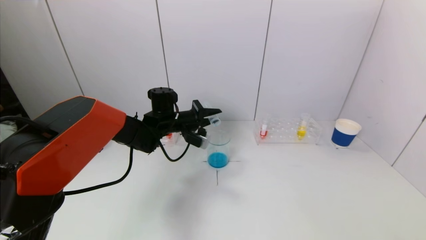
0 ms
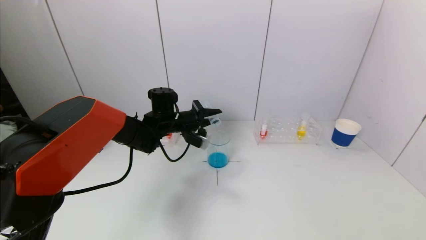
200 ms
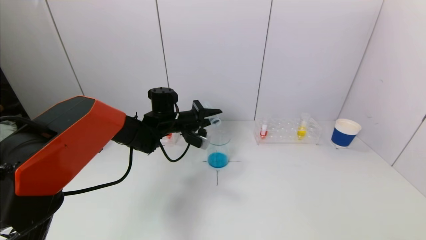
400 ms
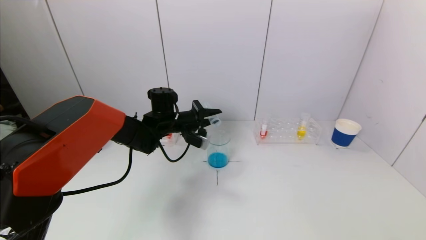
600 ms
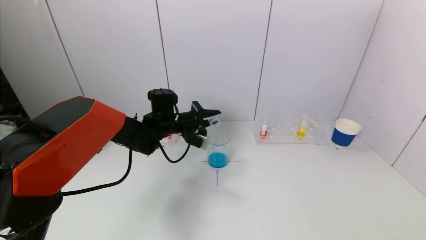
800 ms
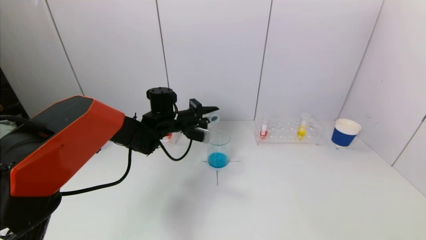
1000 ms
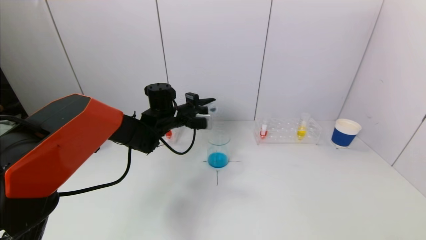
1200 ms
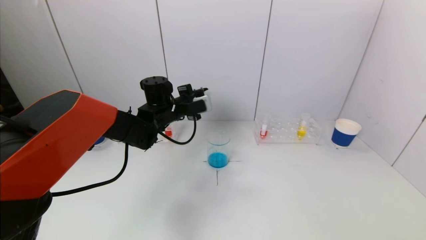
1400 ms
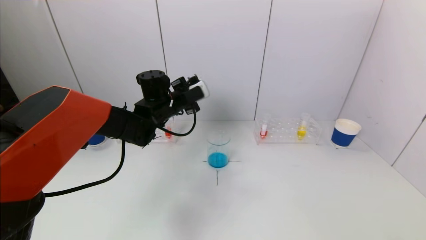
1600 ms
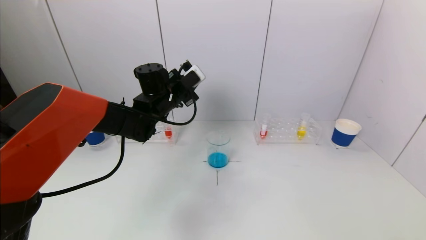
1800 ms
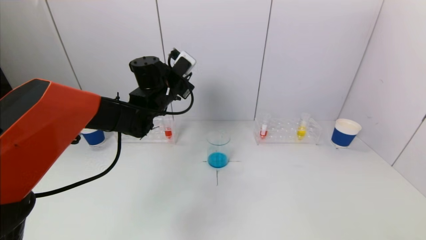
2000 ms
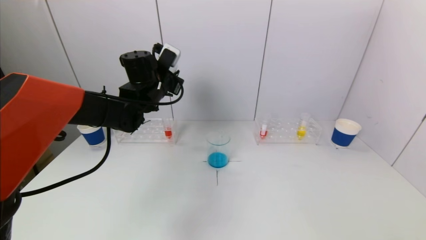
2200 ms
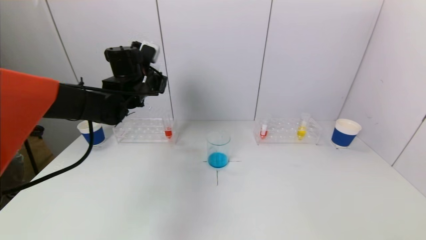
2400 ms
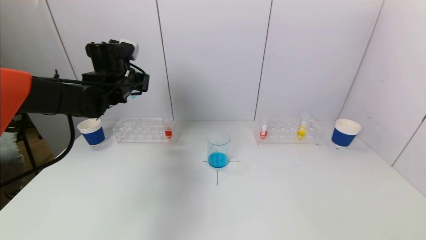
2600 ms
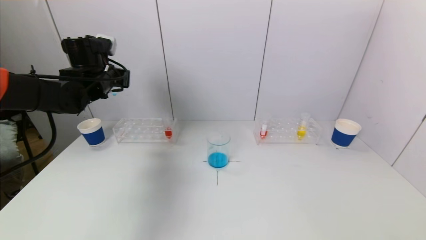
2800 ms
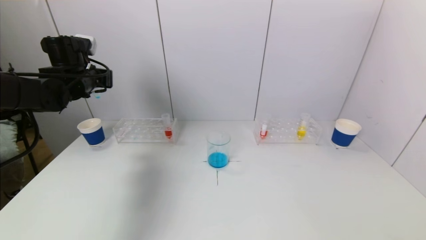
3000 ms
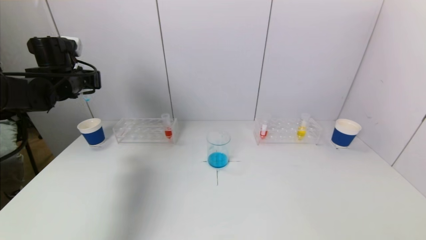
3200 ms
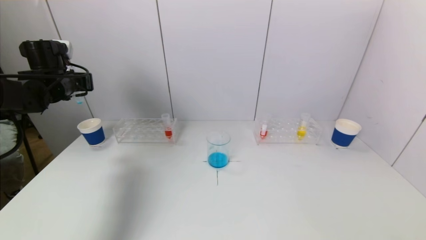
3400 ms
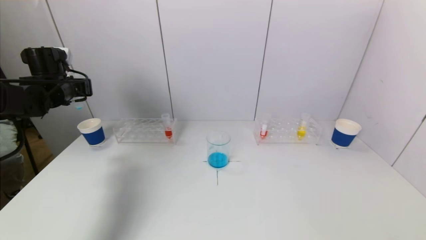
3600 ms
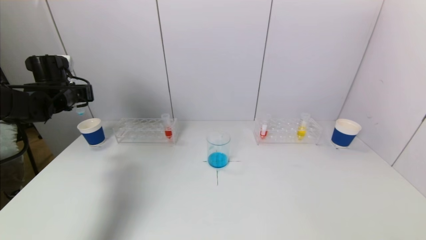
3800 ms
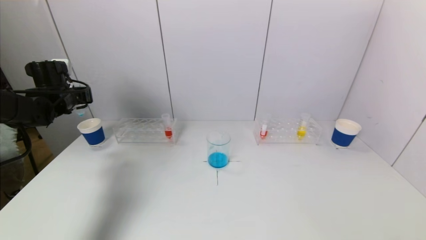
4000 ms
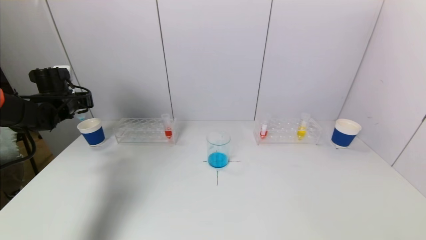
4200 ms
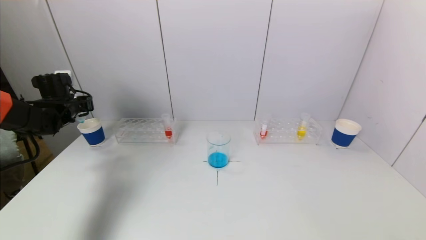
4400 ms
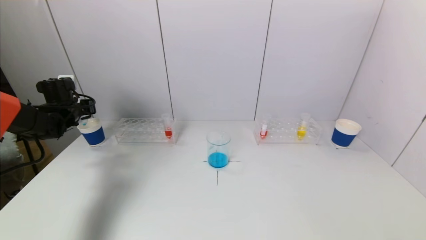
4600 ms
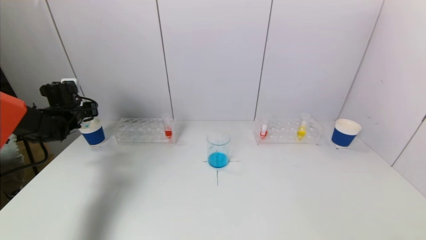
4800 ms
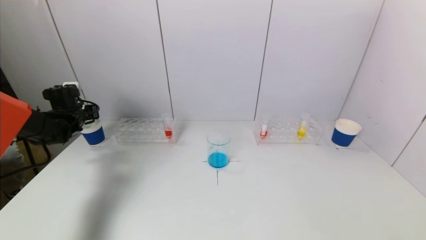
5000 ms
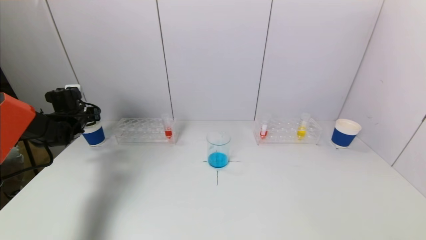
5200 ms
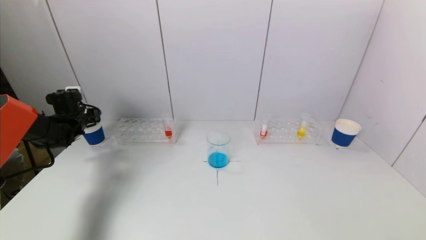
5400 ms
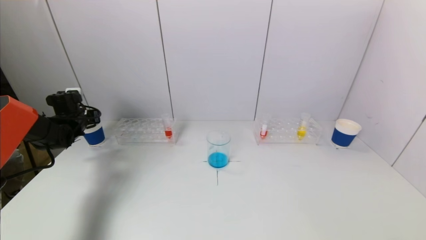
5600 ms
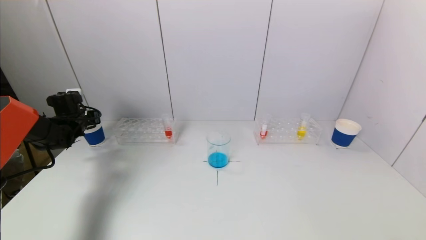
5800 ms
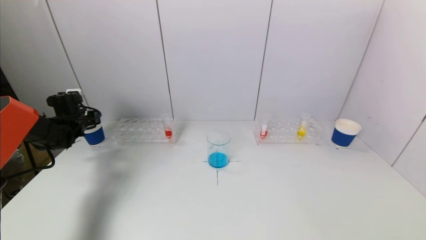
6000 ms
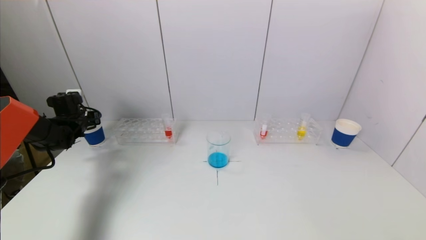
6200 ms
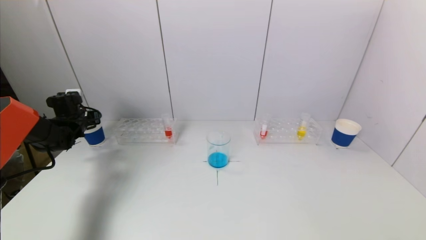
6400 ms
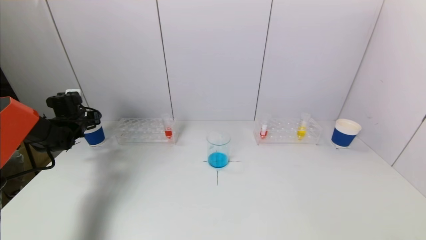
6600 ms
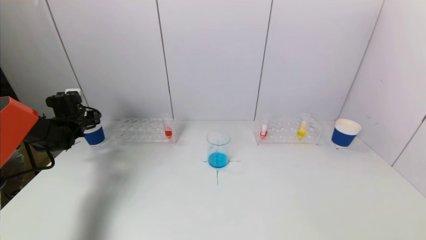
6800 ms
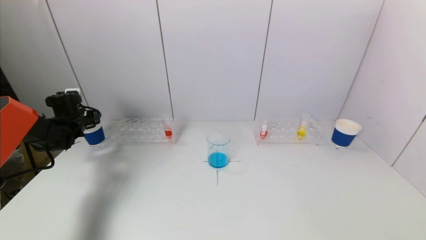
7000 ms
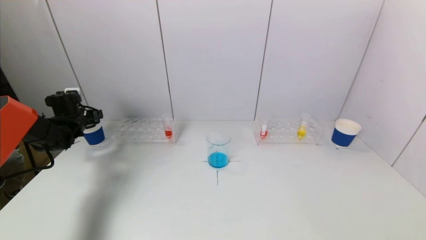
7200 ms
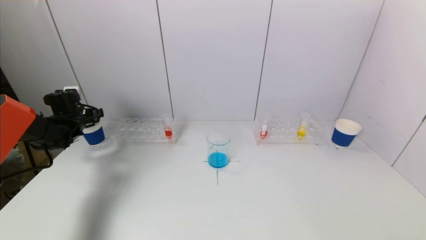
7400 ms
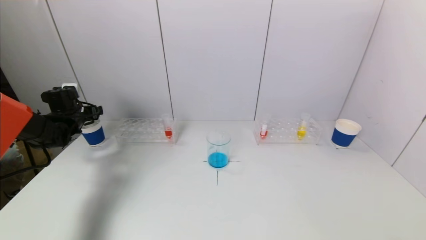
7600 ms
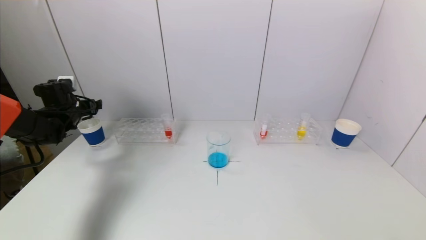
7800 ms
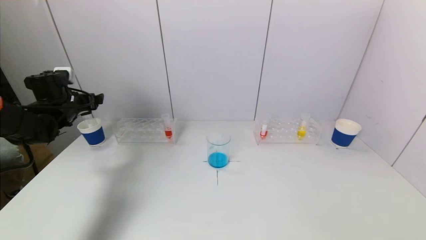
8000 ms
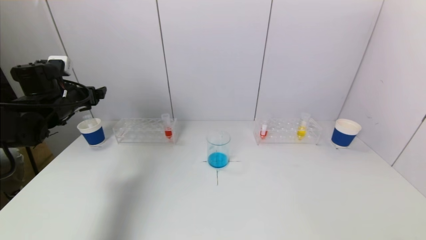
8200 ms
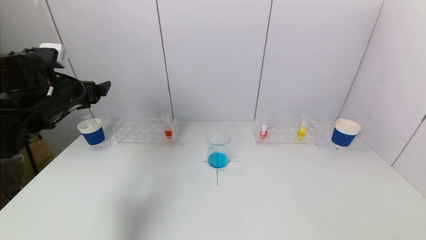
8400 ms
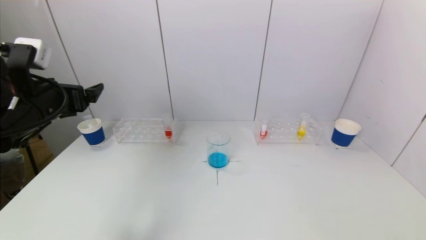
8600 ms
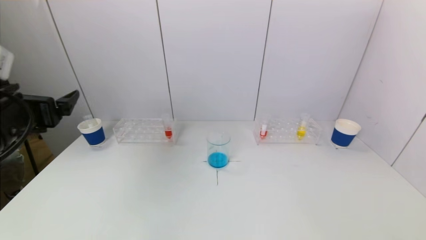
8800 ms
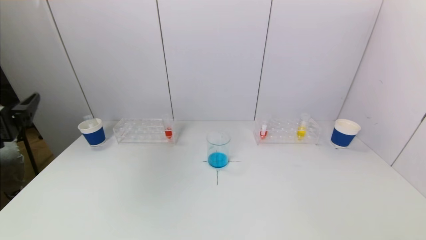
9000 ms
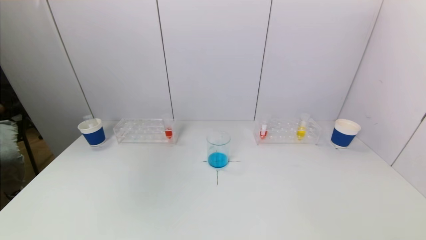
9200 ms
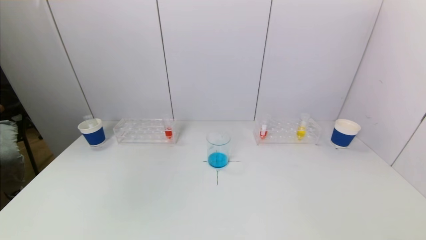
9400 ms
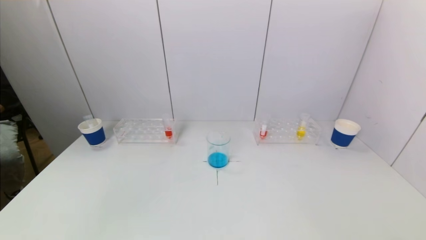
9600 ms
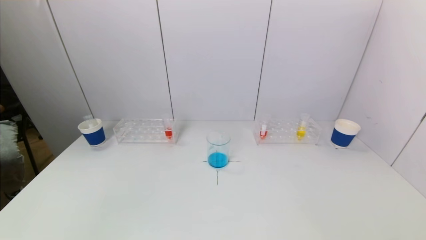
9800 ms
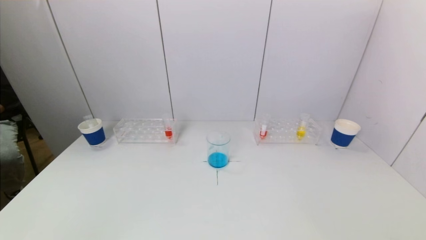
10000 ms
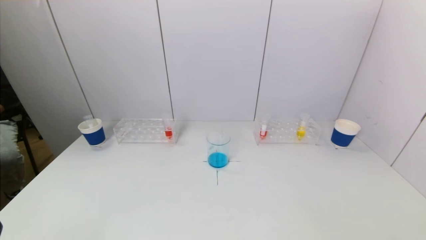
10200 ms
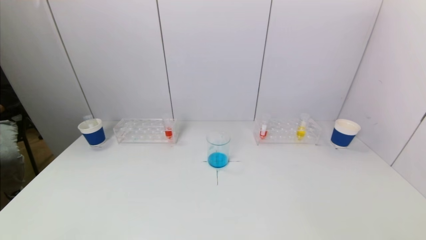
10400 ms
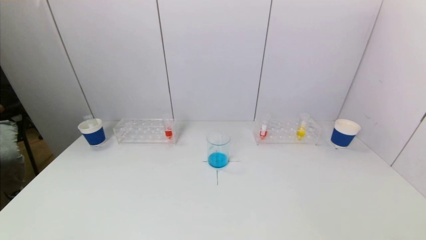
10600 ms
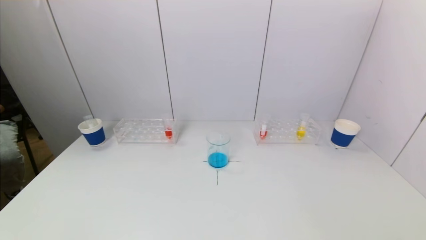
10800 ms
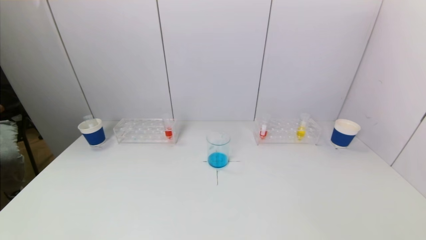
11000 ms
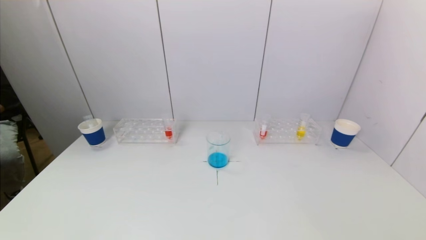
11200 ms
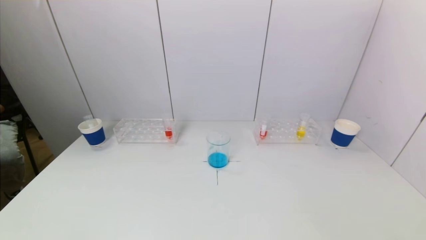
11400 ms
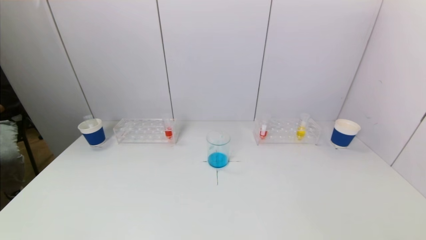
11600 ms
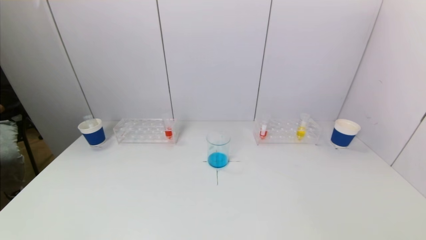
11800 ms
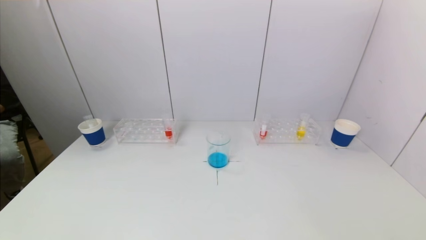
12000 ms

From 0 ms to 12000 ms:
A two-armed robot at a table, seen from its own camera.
Task of the whole recording: pick up a test tube with pigment on left test tube rack and a test tube with pigment on right test tube rack by grippers and pour them into the beaker.
Step, from 1000 ms to 7000 ms: Place the test tube into the paper cup with the left gripper.
From 0 ms to 1600 ms: The left gripper heads upward, covering approximately 5 cm.
From 1600 ms to 3000 ms: The left gripper moves to the left, approximately 20 cm.
From 3000 ms to 4400 ms: The left gripper goes about 15 cm to the left and downward.
From 4400 ms to 6000 ms: The left gripper heads downward, covering roughly 5 cm.
From 6000 ms to 7600 ms: The left gripper opens up.
From 7600 ms to 9000 ms: The left gripper shifts about 35 cm backward and upward.
From 9000 ms to 10400 ms: The left gripper moves downward and backward, roughly 20 cm.

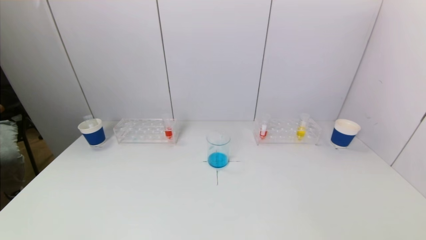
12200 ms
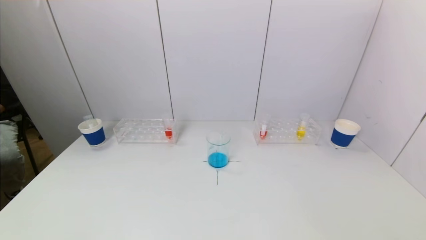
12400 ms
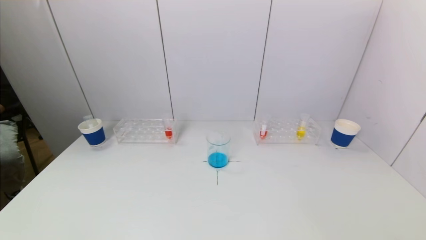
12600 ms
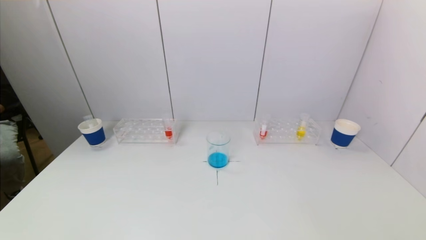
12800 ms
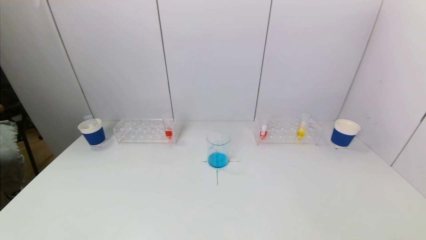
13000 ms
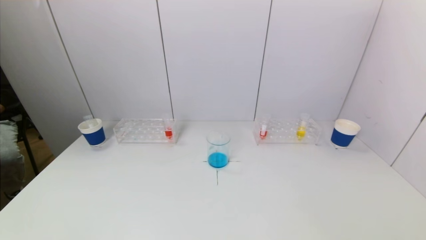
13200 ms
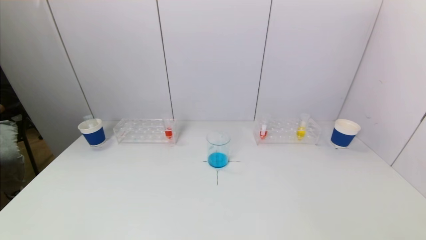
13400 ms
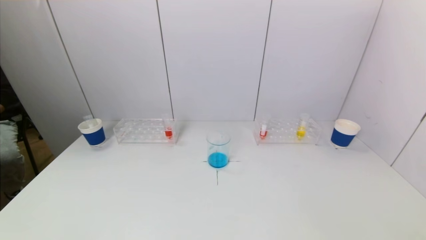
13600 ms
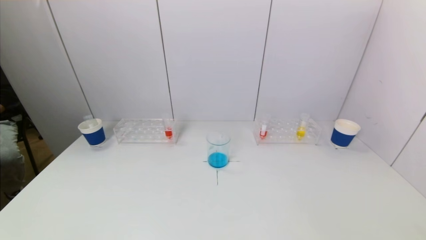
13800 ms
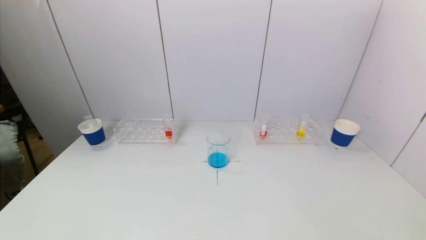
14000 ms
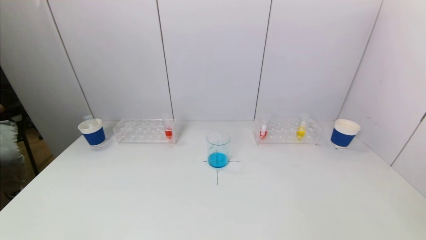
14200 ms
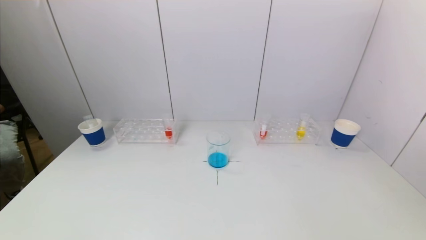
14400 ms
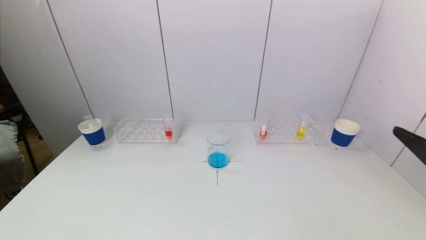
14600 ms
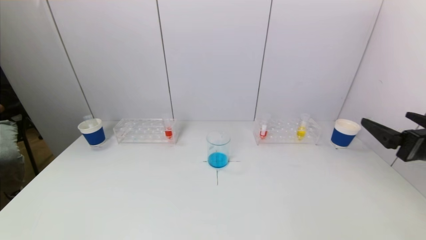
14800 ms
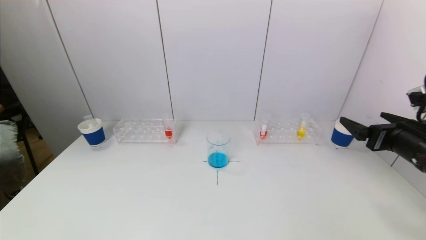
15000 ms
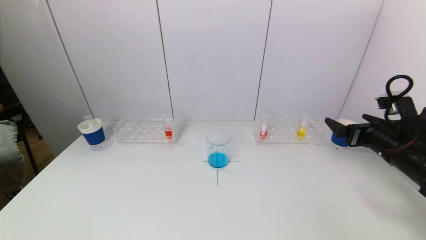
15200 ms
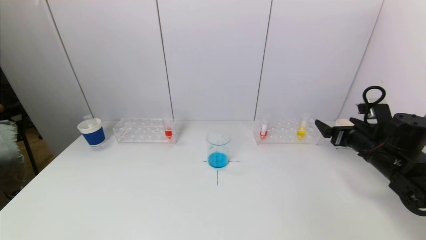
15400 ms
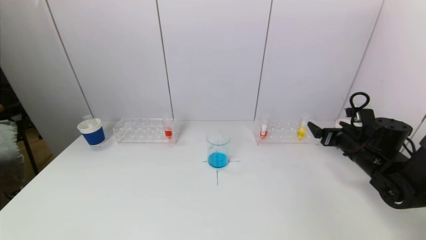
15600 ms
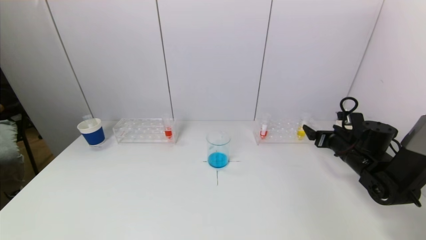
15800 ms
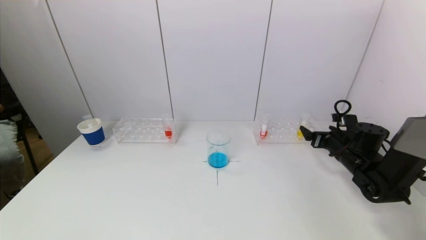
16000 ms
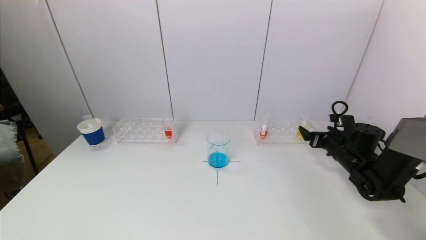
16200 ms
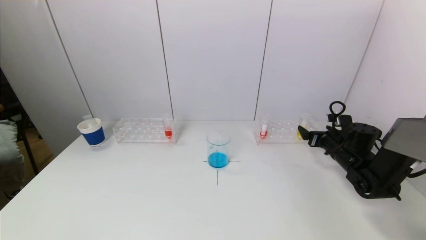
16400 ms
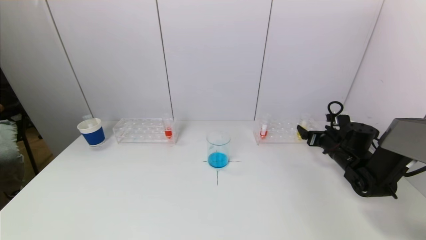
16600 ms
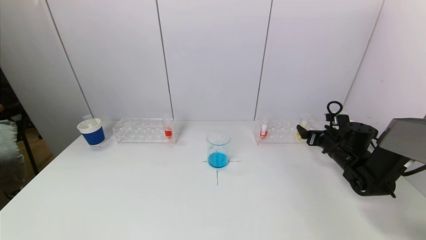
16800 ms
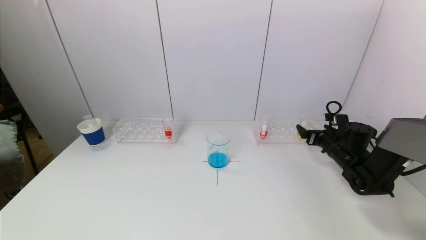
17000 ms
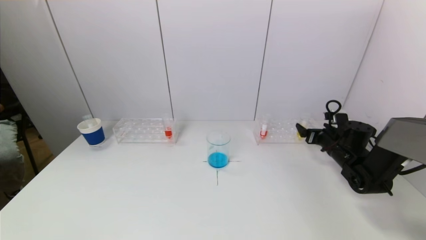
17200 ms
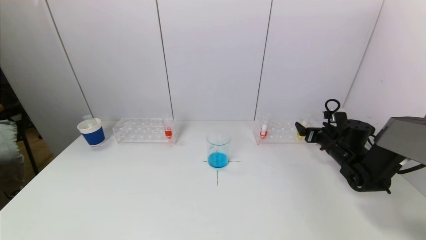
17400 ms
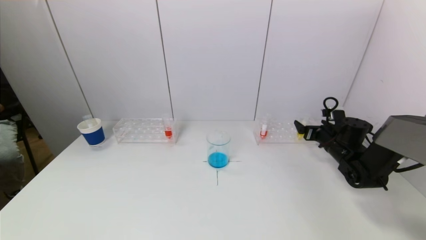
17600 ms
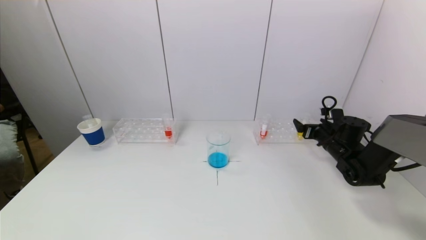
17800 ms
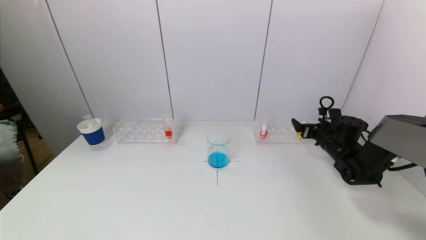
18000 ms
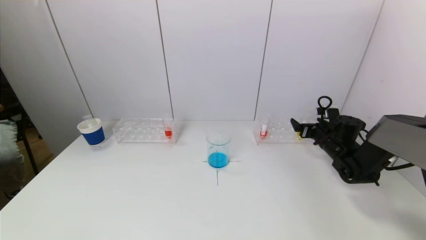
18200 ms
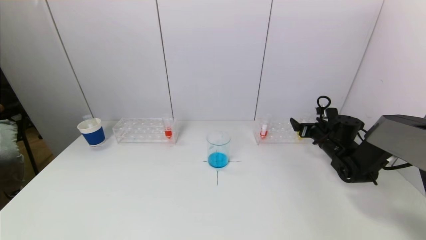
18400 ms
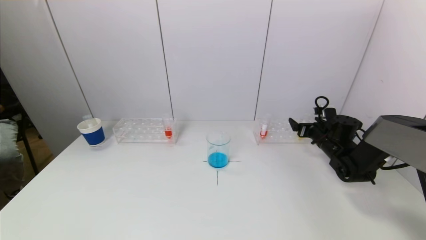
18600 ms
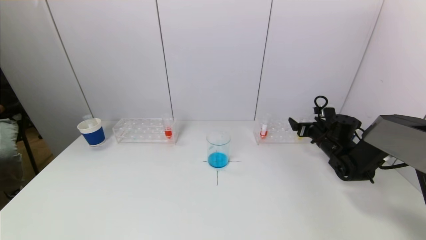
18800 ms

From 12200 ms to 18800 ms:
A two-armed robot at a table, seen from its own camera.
Task of the whole recording: pick up a test tube with pigment on left test tube rack and a test tube with pigment on right test tube rack by grippers and pour them into the beaker.
From 13800 ms to 15400 ms: The right gripper travels forward by approximately 35 cm.
From 15400 ms to 17200 ms: The right gripper heads forward and downward, covering about 10 cm.
From 17200 ms to 18800 ms: The grippers stay close to where they were, moving slightly.
